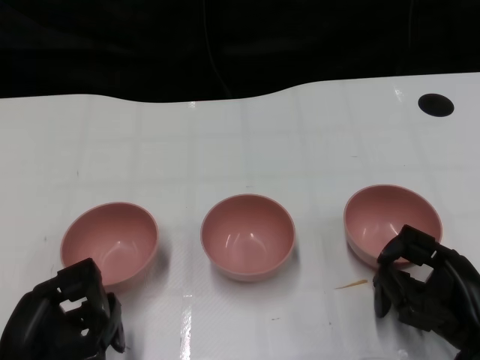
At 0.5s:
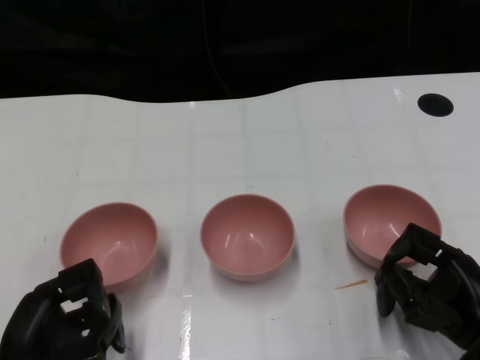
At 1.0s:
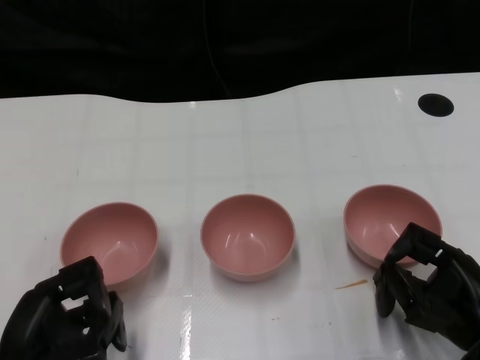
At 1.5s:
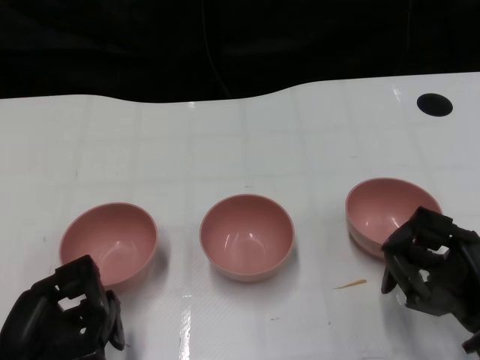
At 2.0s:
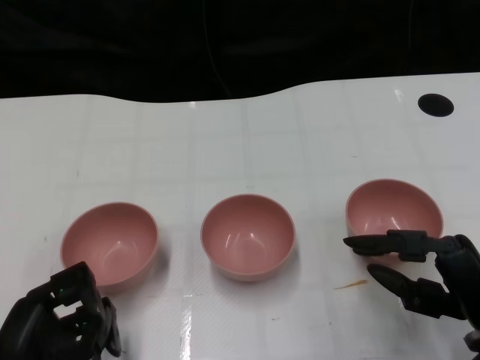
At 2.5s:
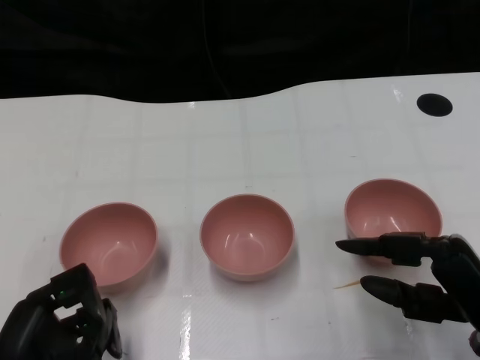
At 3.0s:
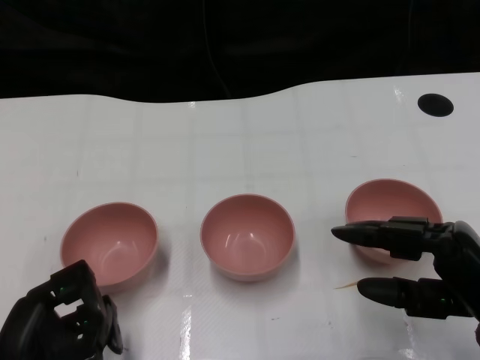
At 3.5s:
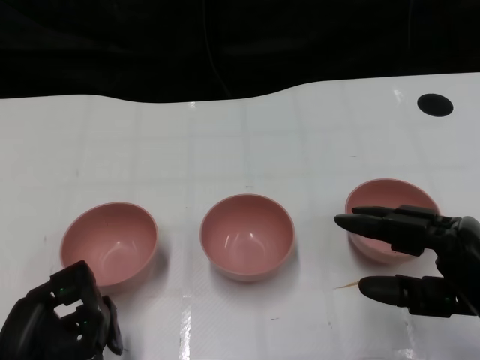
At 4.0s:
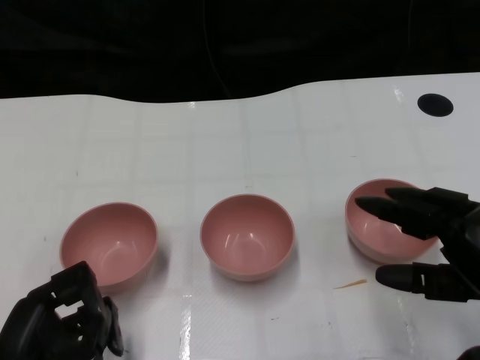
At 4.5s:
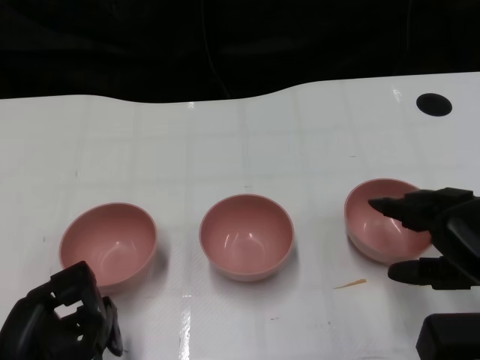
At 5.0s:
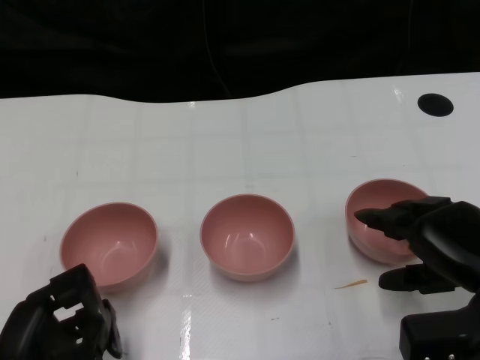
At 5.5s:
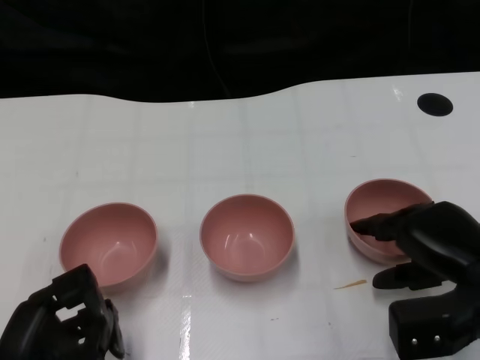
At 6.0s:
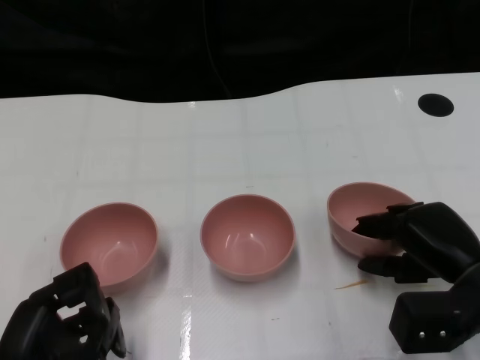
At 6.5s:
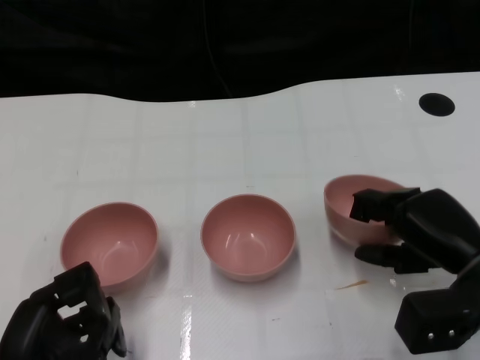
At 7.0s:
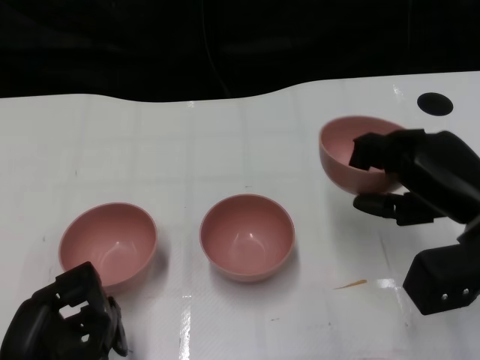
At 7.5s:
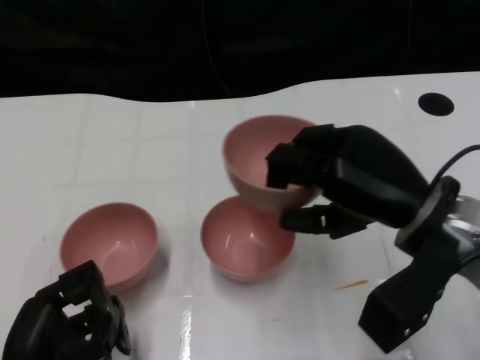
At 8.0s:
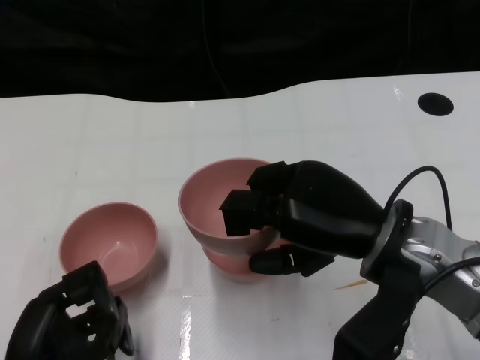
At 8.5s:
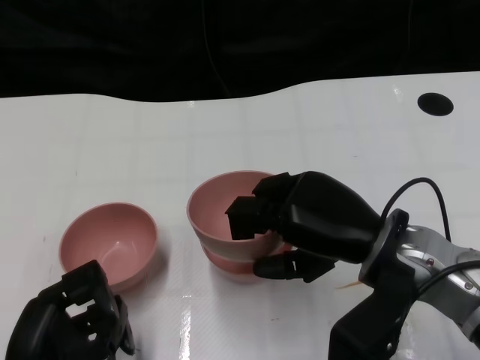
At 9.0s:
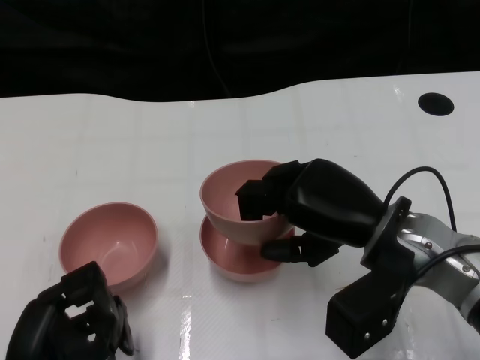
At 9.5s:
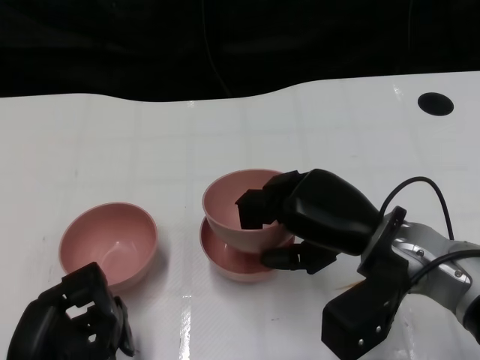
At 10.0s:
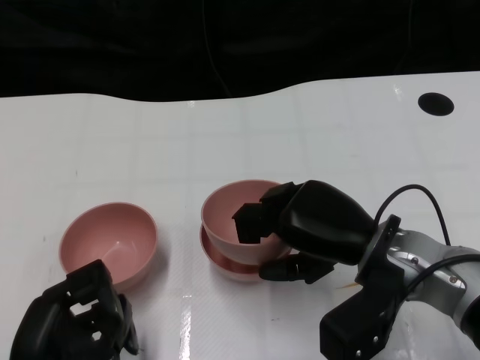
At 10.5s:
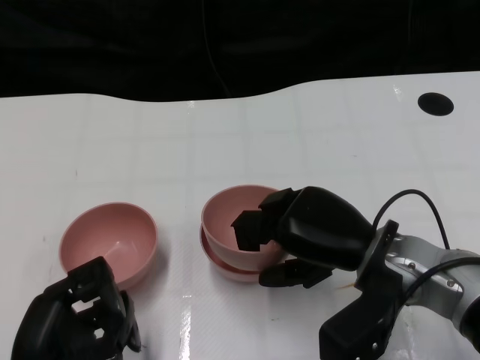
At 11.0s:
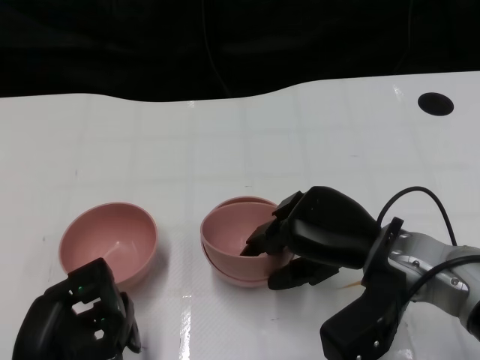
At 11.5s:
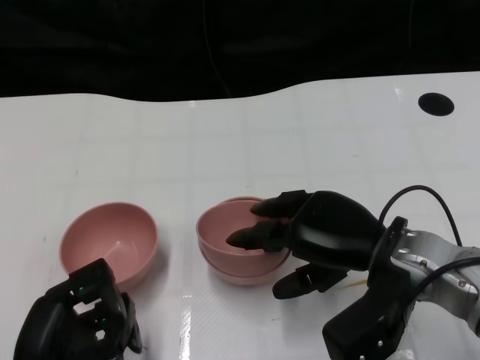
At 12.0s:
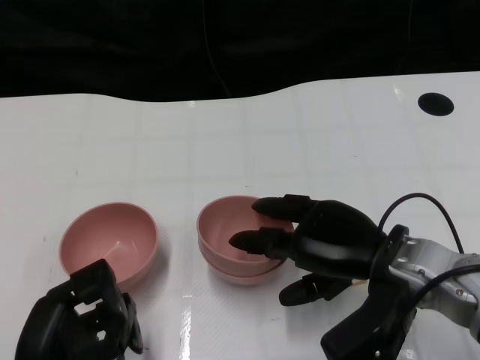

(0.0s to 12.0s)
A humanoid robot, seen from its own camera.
Task of the whole recording: Pick up the bowl on one side of the table and place it on top of the middle bowl, then pick up the bowl on the other side of the table and place it on top of the middle bowls.
Step, 1.5s - 6.5s: Grasp the bowl on the right with the right gripper.
2.0s - 4.0s: The right hand shifts about 5 cm upward.
4.0s - 6.0s: The right hand goes approximately 10 cm forward and downward.
6.0s - 8.0s: The right hand heads upward and to the left, covering some 15 cm.
8.0s - 10.0s: The hands stay close to where they were, moving slightly.
10.0s - 12.0s: The hands stay close to where they were, moving slightly.

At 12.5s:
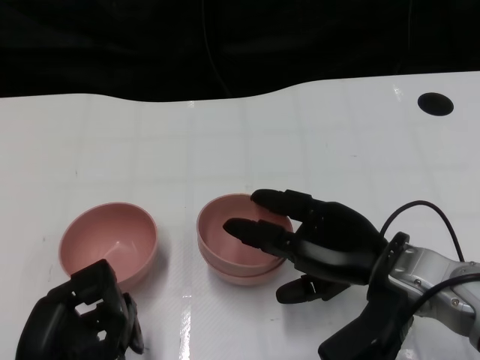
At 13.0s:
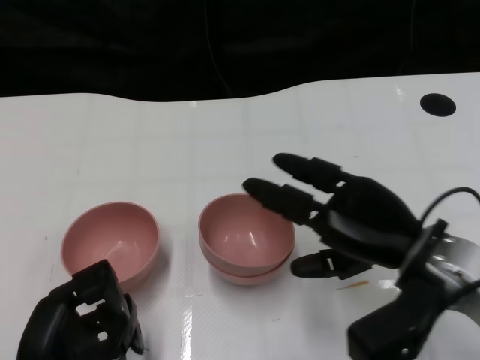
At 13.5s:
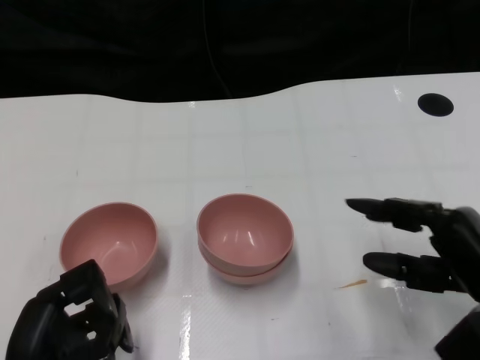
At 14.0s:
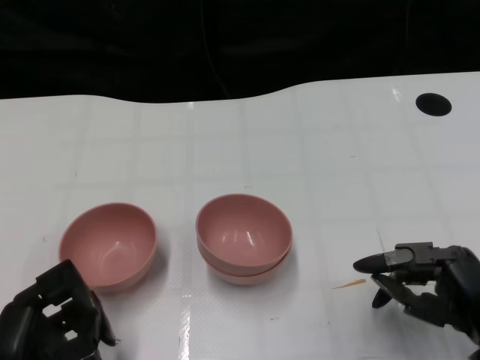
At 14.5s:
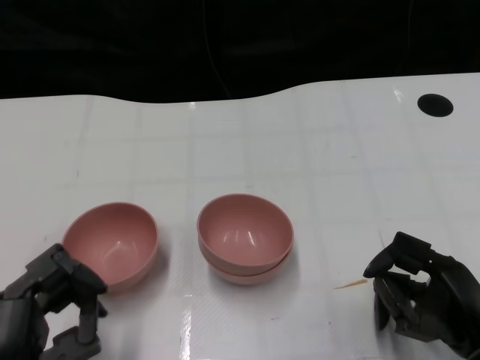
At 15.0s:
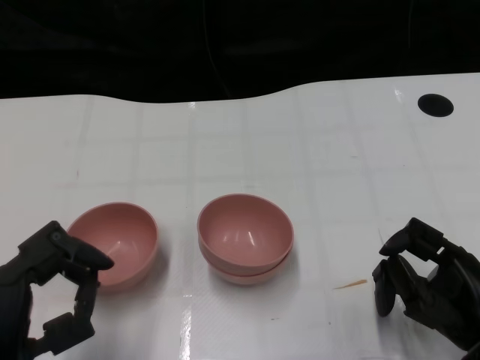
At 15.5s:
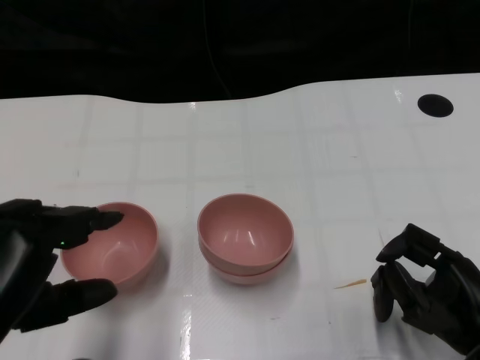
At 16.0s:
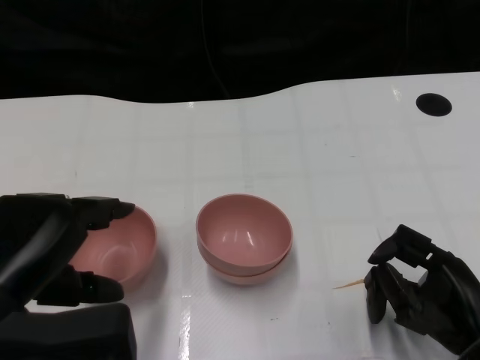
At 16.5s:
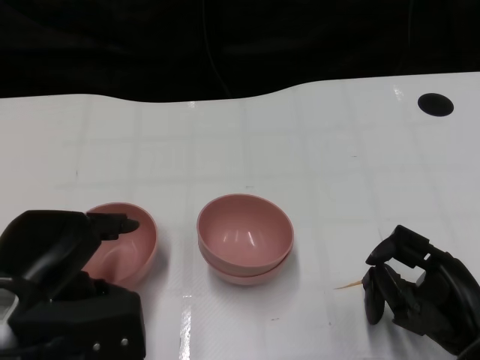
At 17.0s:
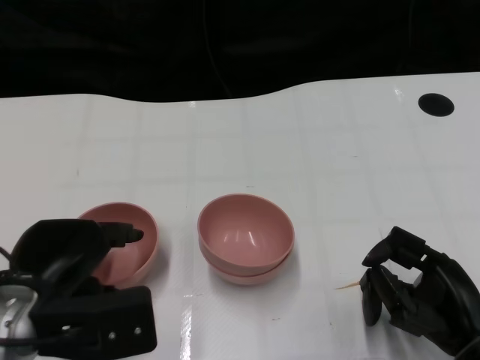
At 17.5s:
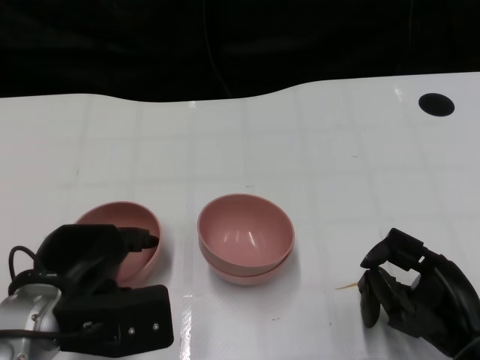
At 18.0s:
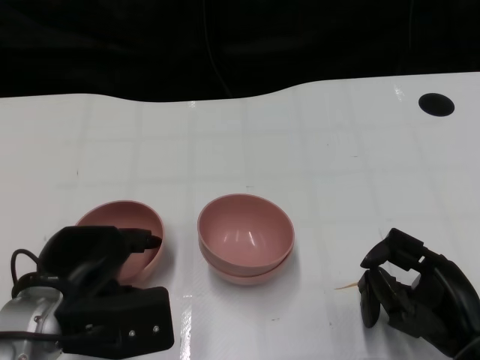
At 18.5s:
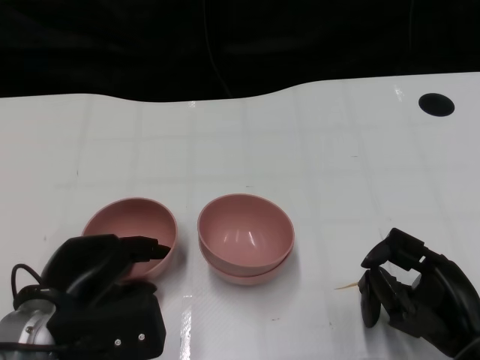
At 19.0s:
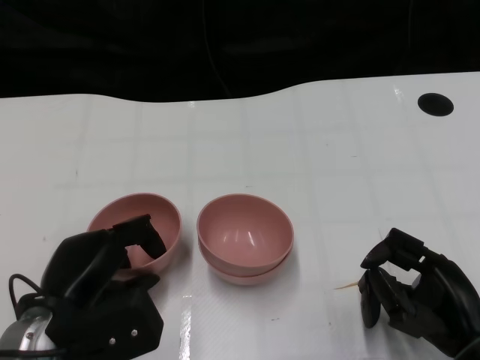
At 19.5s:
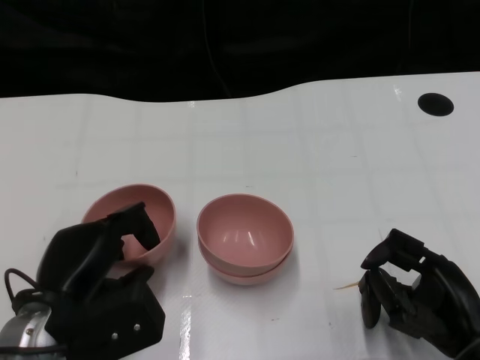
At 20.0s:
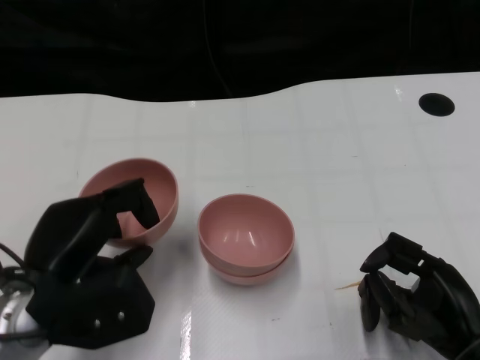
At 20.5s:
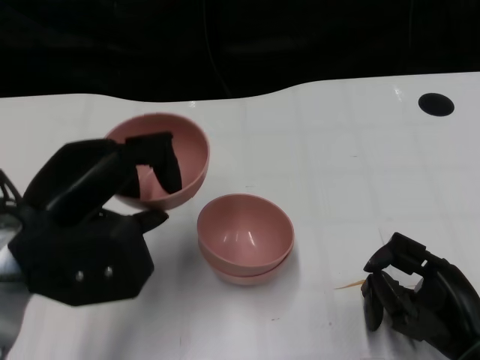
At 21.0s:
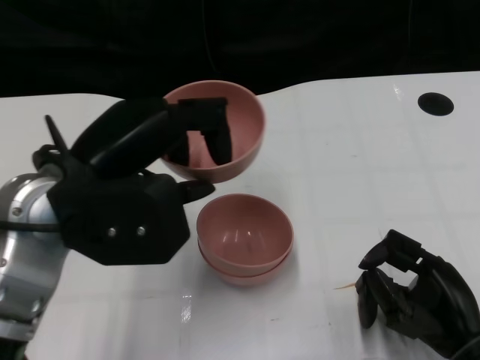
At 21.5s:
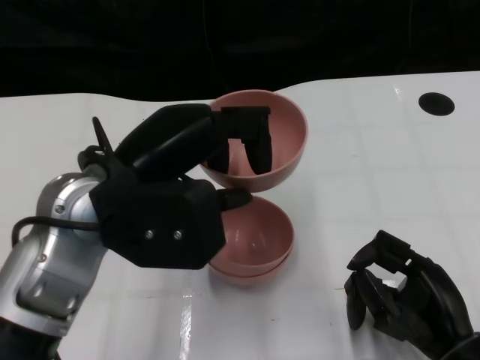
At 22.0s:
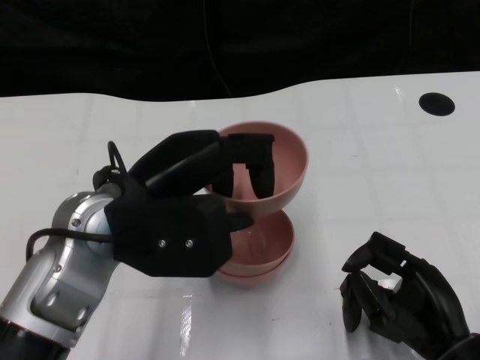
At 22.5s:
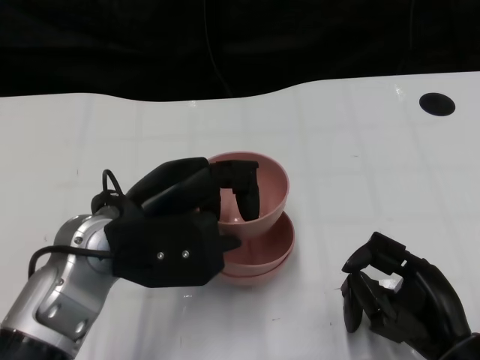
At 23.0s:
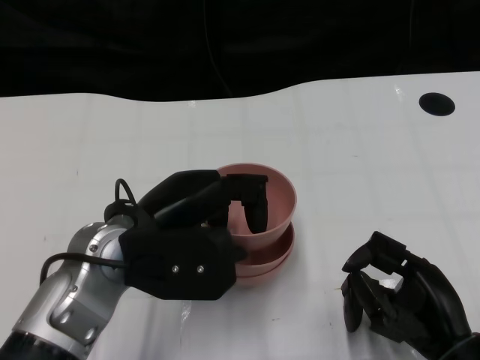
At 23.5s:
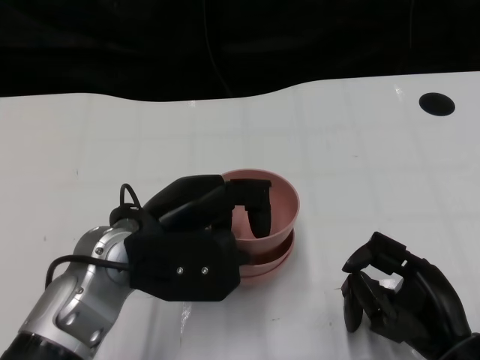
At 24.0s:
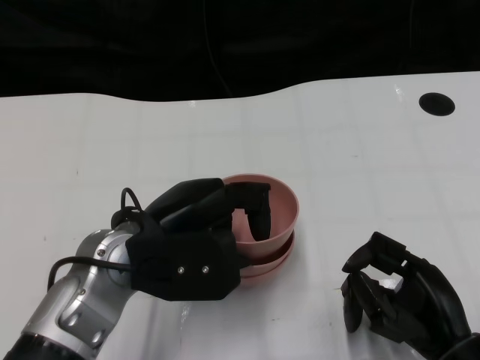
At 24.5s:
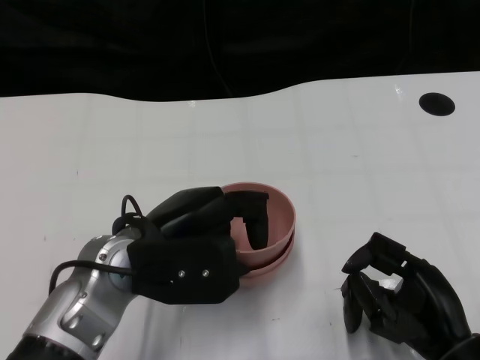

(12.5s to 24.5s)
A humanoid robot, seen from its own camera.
Task of the whole recording: Pick up the bowl on one side of the table and place it on top of the middle bowl, then pick up the bowl on the other side of the table and place it on top of the middle bowls.
Step, 13.5s - 18.5s: Grasp the bowl on the left with the left gripper.
12.5s - 14.5s: The right hand travels to the right, backward and downward by about 15 cm.
14.5s - 16.5s: The left hand goes about 10 cm forward and upward.
16.5s - 18.5s: The left hand is displaced downward by approximately 5 cm.
18.5s - 20.5s: The left hand shifts roughly 10 cm upward.
20.5s - 22.5s: The left hand moves to the right, approximately 5 cm.
22.5s - 24.5s: There are only small adjustments of the hands.

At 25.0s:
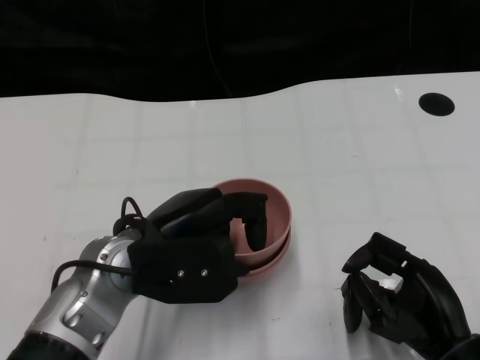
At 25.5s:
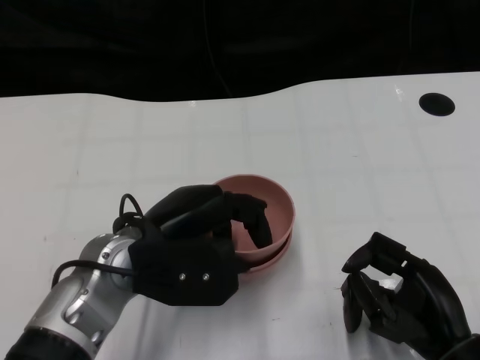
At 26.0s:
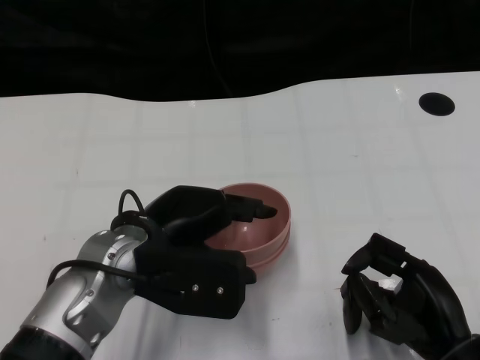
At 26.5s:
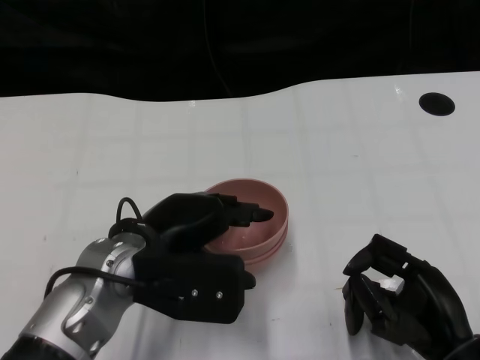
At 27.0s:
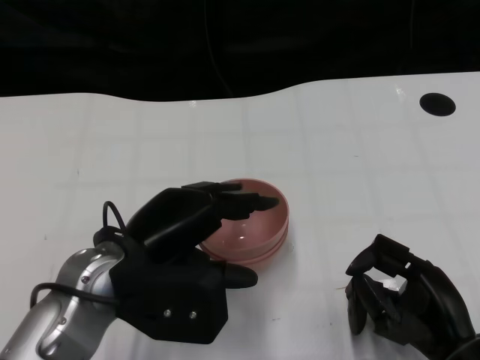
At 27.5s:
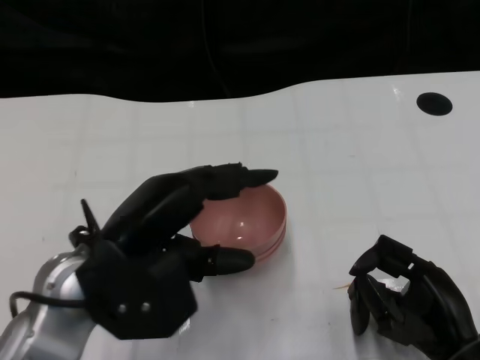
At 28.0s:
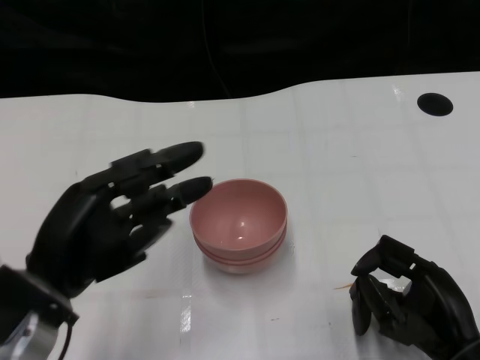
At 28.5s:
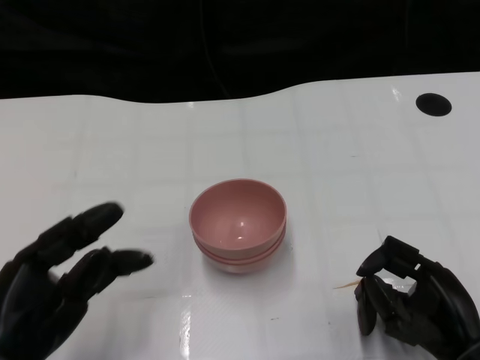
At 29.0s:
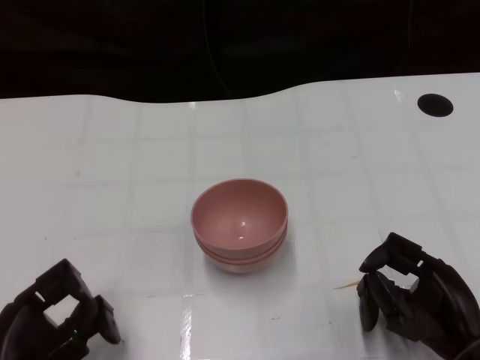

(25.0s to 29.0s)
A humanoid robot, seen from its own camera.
Task of the whole recording: Pick up the bowl on one side of the table and place it on top of the middle bowl, then pick up the bowl on the other side of the table and place it on top of the middle bowls.
Step, 25.0s - 27.5s: Place the bowl on the left onto the bowl in the middle with left gripper.
25.0s - 27.0s: The hands make only small movements.
27.0s - 29.0s: The left hand moves to the left, backward and downward, some 15 cm.
